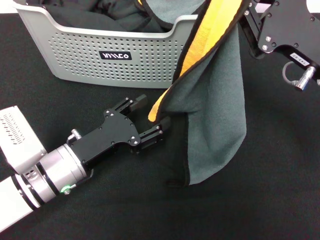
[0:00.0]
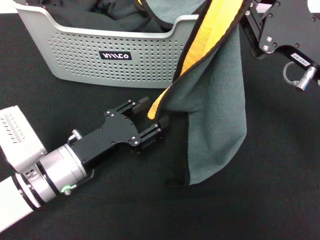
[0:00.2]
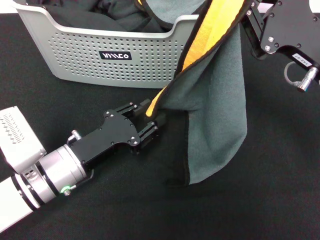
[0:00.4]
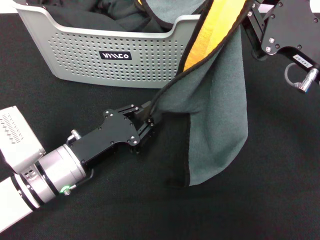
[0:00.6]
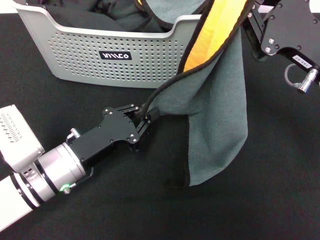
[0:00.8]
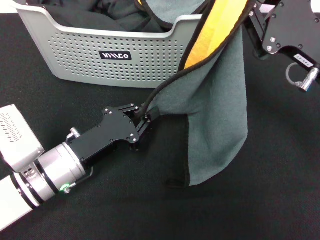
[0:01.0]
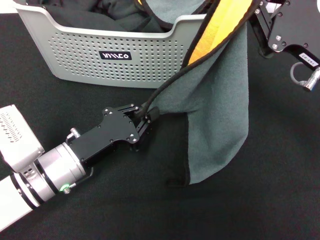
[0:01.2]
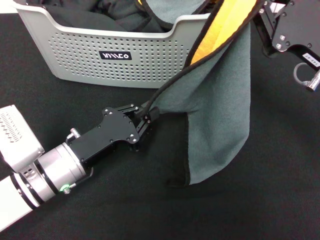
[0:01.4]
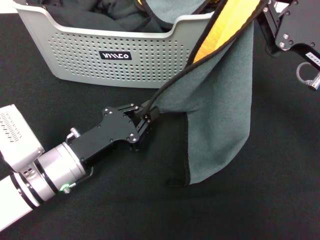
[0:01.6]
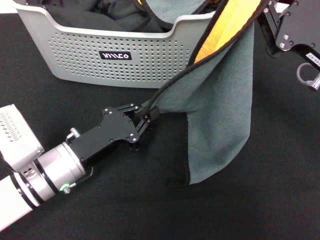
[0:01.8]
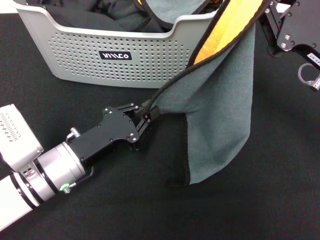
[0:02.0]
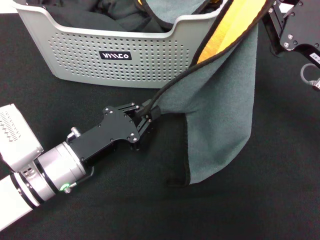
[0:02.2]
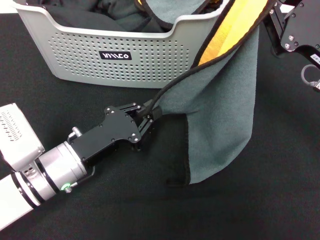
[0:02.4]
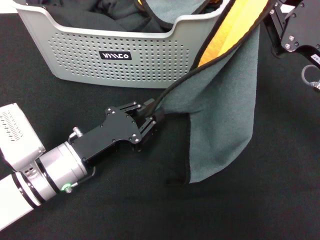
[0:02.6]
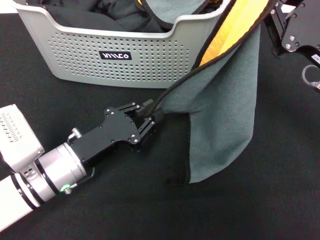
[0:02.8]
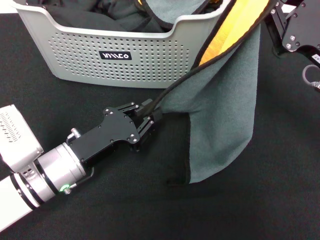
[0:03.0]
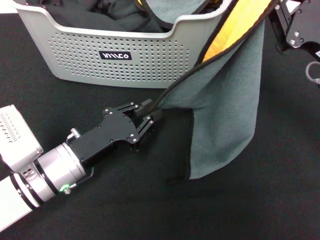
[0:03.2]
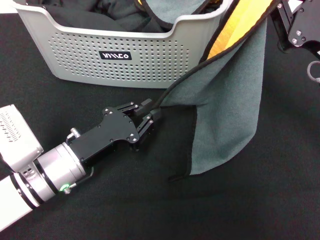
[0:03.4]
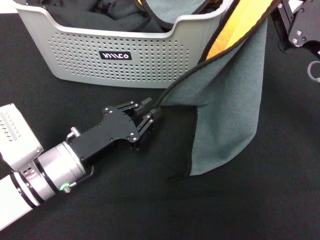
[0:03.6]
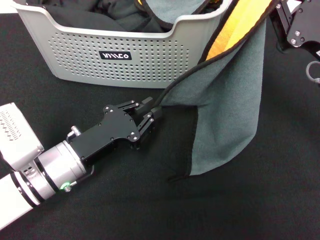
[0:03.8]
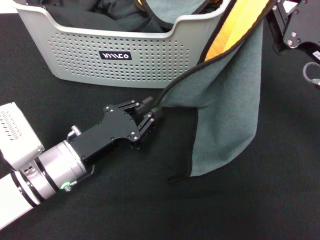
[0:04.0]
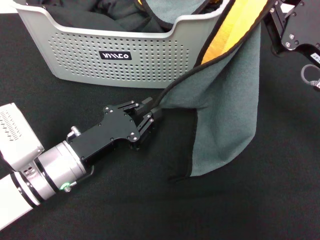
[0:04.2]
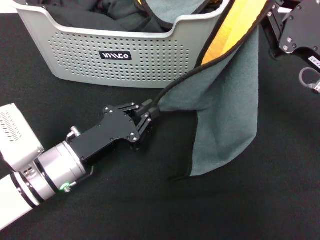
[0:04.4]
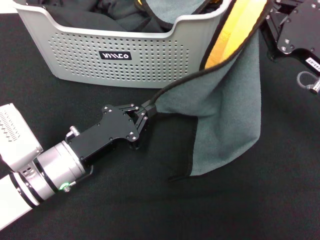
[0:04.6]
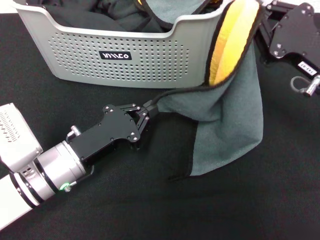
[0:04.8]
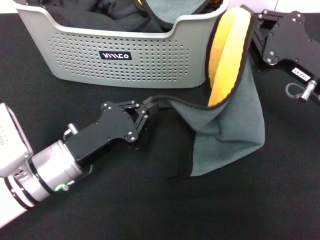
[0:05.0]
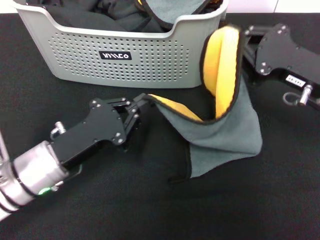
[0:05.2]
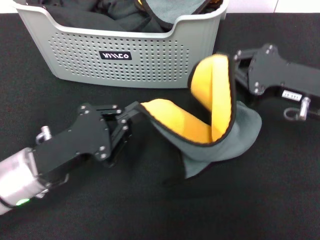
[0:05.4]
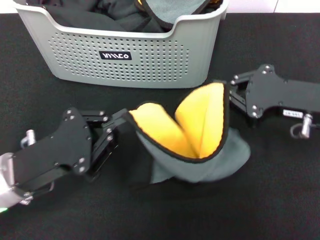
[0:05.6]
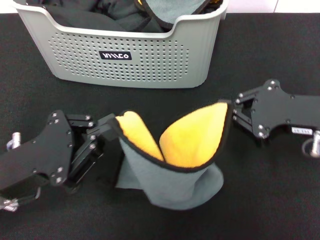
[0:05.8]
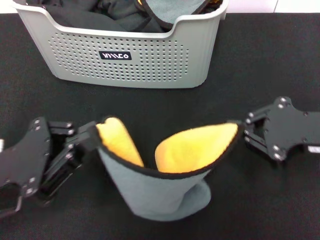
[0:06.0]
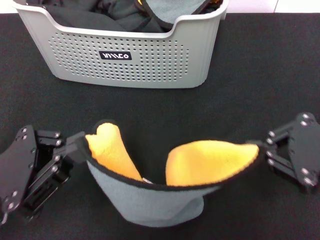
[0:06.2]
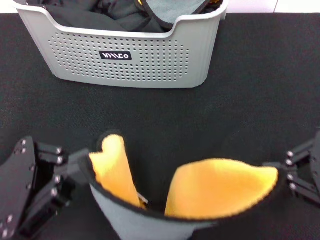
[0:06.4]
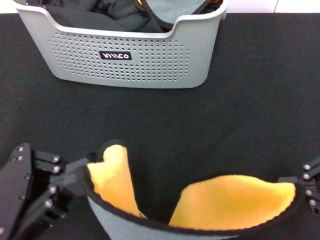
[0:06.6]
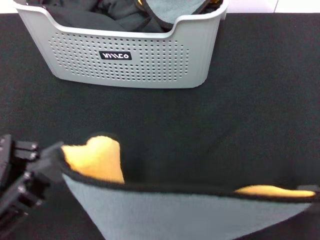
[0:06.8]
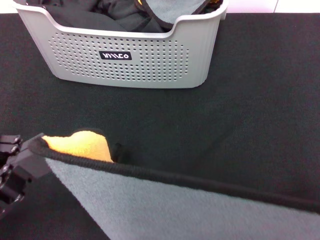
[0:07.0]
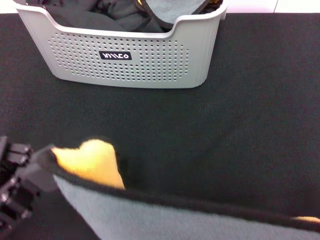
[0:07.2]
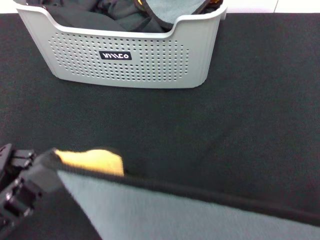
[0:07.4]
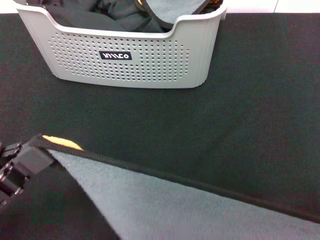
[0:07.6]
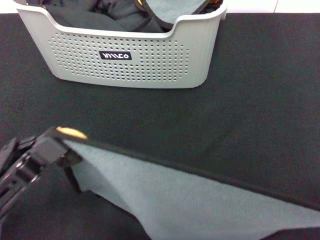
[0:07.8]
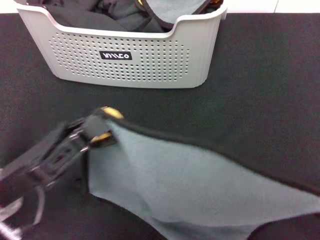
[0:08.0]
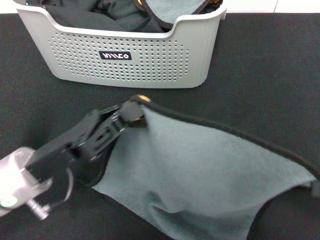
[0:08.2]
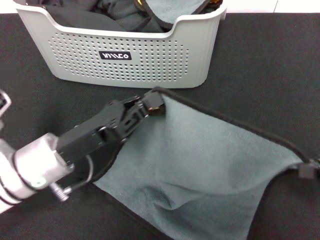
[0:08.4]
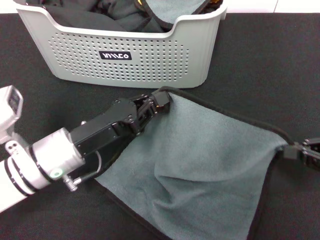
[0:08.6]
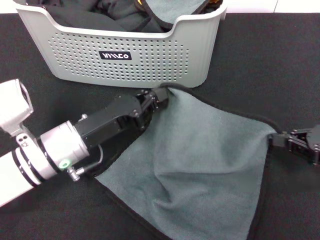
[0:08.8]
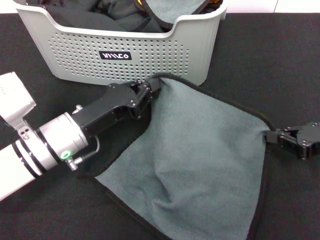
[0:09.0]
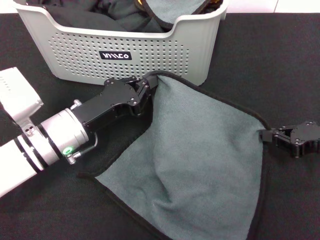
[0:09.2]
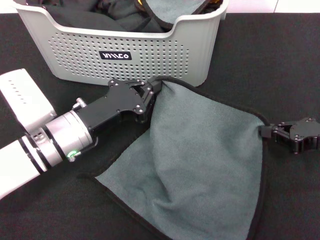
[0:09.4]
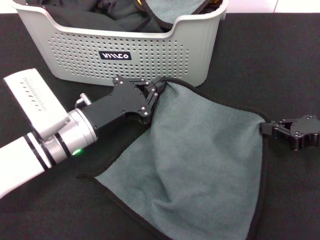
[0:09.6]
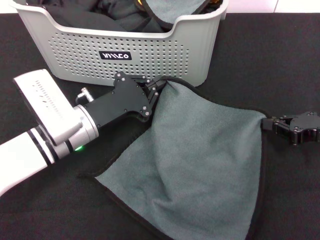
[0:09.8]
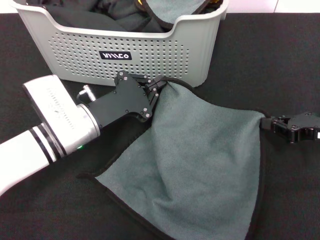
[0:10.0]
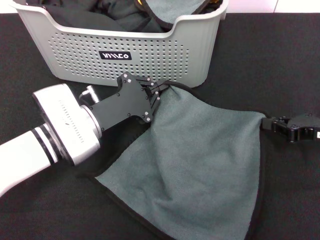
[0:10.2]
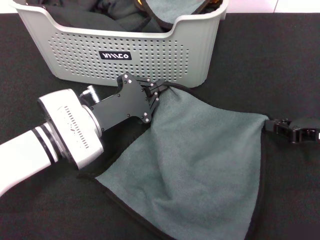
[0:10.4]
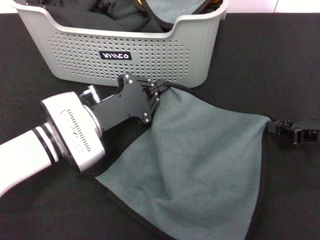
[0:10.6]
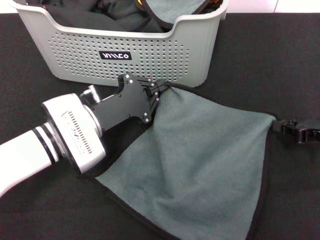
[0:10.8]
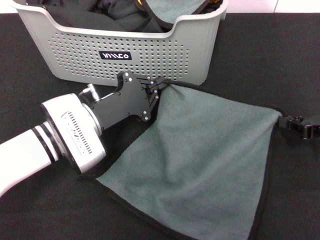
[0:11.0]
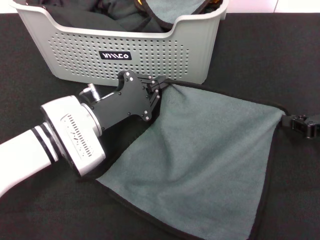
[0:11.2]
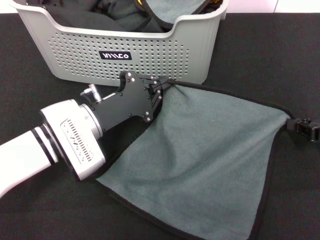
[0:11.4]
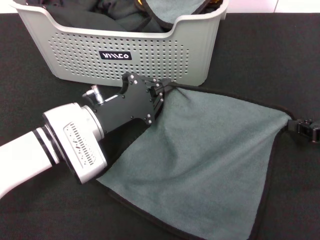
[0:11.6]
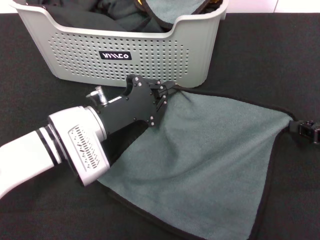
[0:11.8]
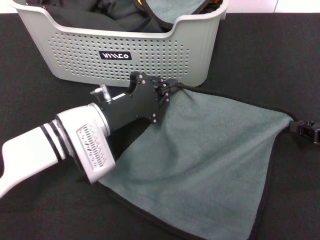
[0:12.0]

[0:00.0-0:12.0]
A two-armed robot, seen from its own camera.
Task of the whole recording: pick up the towel from the storage box and lay it flat on the black tablecloth.
0:00.0 to 0:01.6: The left gripper closes up.
0:01.6 to 0:04.4: The two grippers keep their place.
0:04.4 to 0:06.0: The left gripper travels upward, to the left and backward by some 10 cm, while the right gripper shifts roughly 5 cm backward.
0:06.0 to 0:07.6: The left gripper is displaced backward by about 5 cm. Meanwhile the right gripper is displaced backward and to the right by about 15 cm.
0:07.6 to 0:09.0: The right gripper goes approximately 20 cm forward and downward; the left gripper moves forward, downward and to the right, approximately 20 cm.
0:10.4 to 0:12.0: The grippers make only small movements.

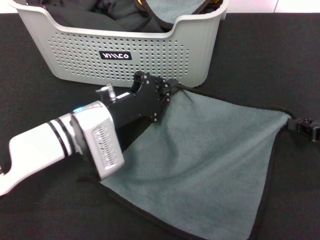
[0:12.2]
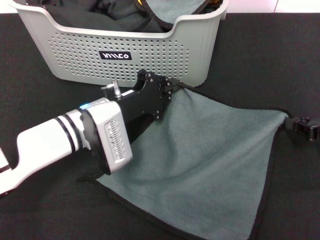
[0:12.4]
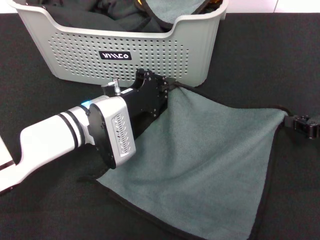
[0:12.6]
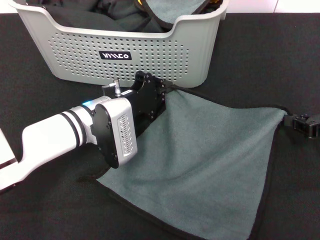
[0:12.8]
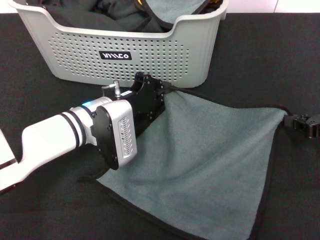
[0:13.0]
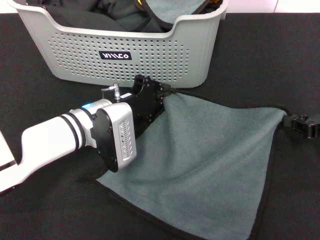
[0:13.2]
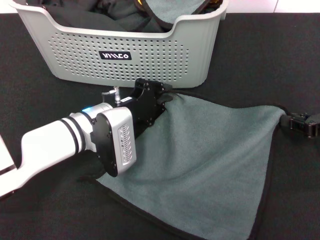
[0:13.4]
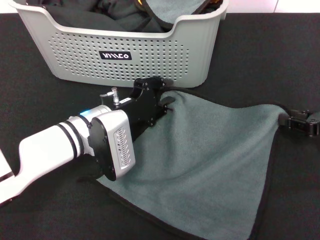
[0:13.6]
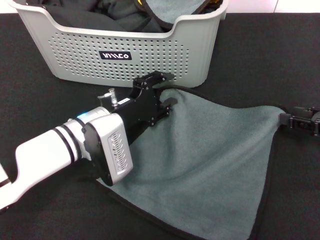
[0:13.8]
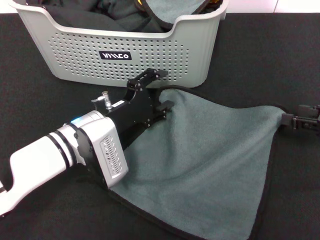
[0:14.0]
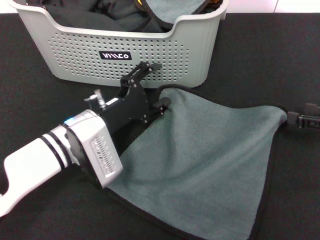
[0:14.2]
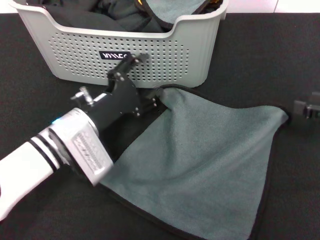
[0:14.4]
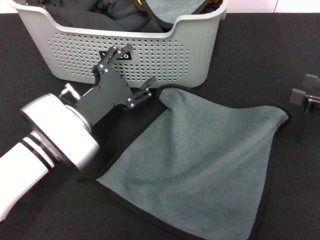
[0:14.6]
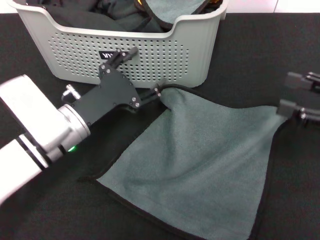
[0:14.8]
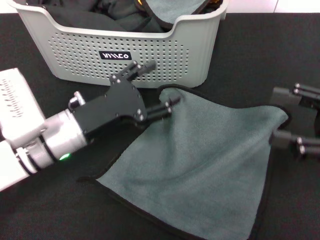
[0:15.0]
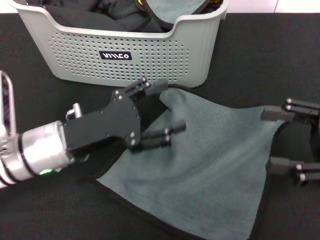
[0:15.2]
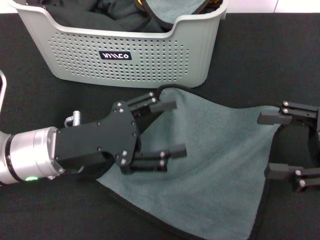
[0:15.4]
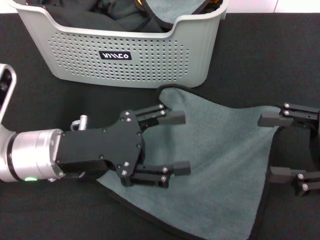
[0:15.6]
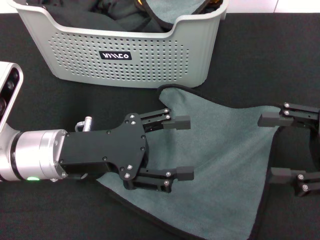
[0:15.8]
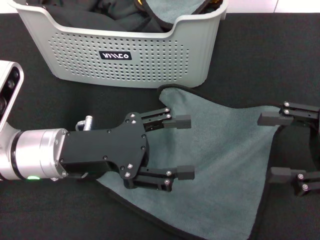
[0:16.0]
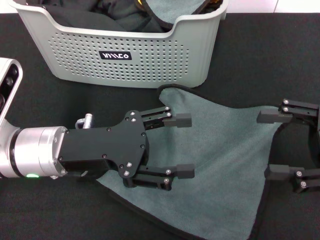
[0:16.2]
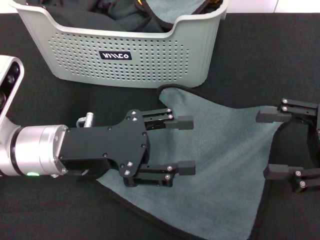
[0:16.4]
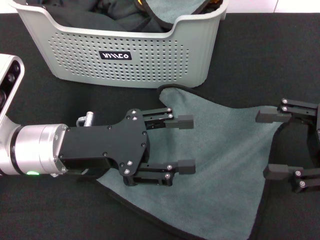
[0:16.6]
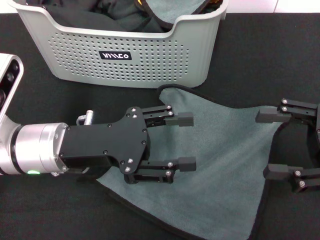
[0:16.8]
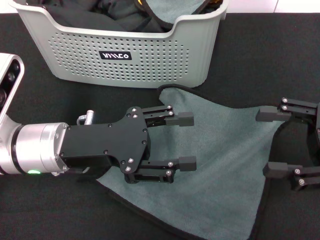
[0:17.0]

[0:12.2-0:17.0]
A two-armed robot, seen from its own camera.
Task of the whole recording: pick up the towel from the storage box and lay it flat on the black tablecloth.
0:12.2 to 0:13.8: The left gripper opens.
0:13.8 to 0:15.4: The right gripper travels upward and backward by approximately 10 cm, and opens. The left gripper is displaced upward, backward and to the left by approximately 10 cm, and opens up.
0:15.4 to 0:17.0: The grippers move only a little.
